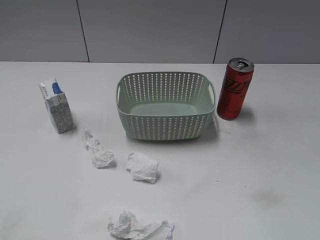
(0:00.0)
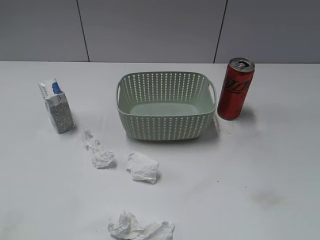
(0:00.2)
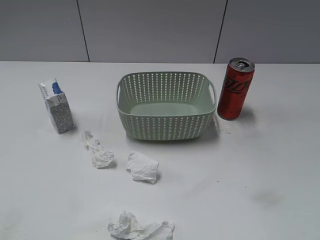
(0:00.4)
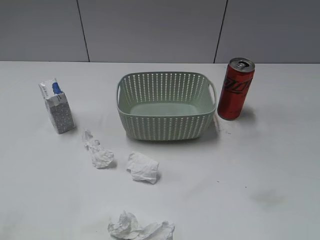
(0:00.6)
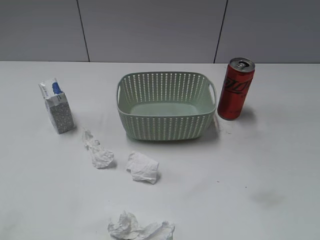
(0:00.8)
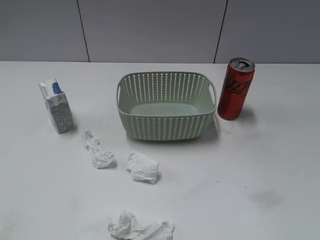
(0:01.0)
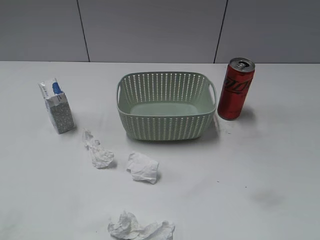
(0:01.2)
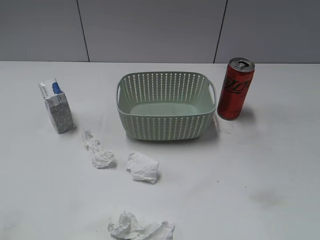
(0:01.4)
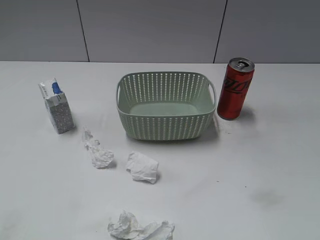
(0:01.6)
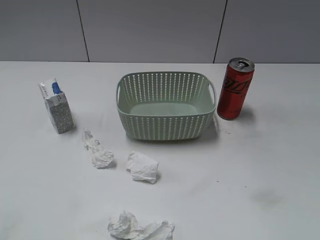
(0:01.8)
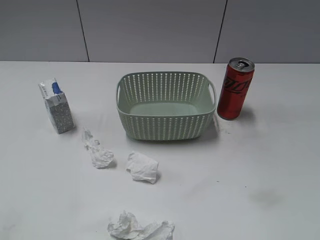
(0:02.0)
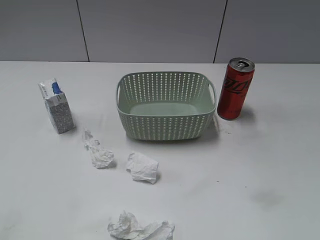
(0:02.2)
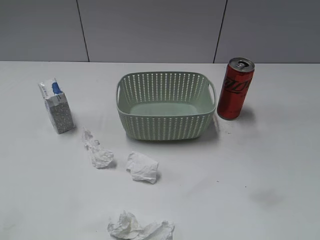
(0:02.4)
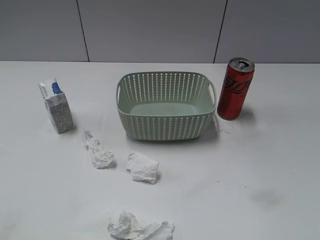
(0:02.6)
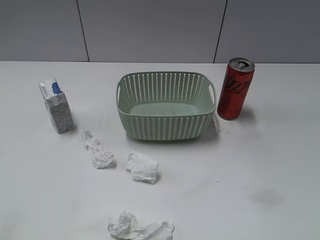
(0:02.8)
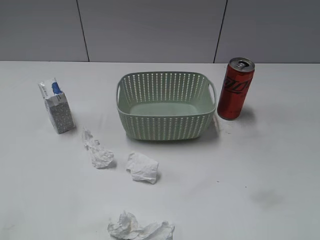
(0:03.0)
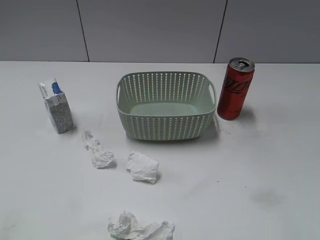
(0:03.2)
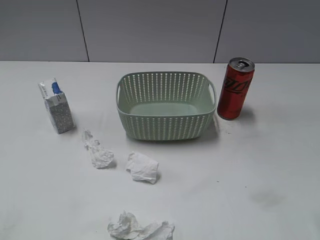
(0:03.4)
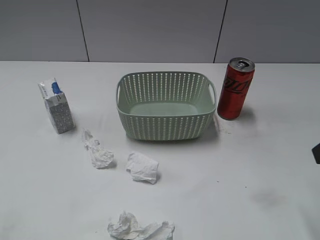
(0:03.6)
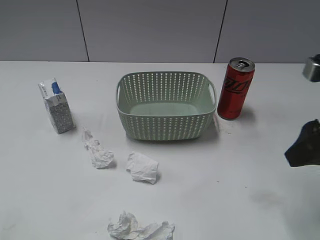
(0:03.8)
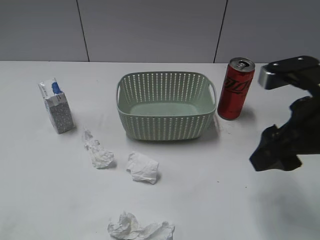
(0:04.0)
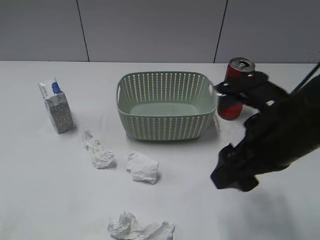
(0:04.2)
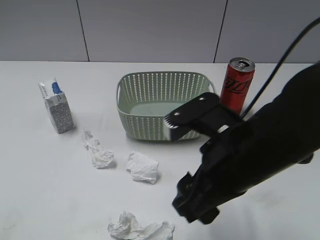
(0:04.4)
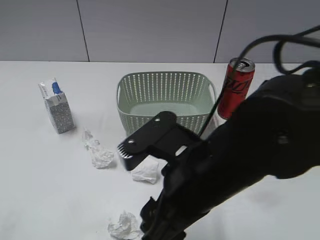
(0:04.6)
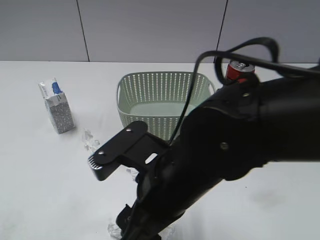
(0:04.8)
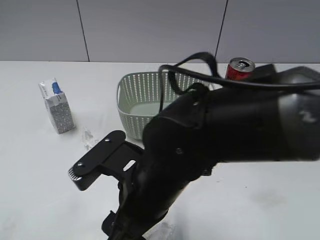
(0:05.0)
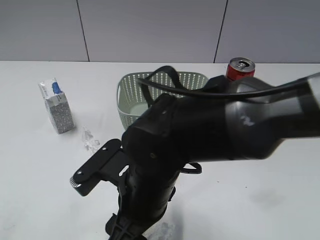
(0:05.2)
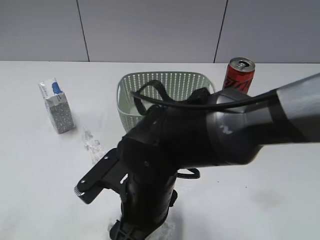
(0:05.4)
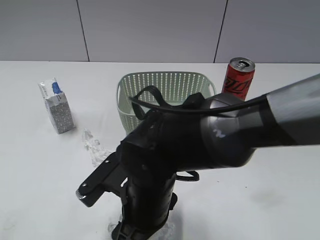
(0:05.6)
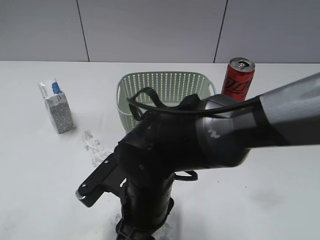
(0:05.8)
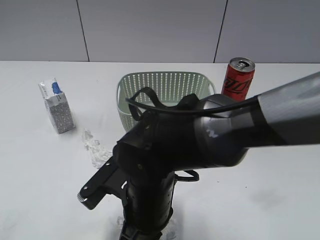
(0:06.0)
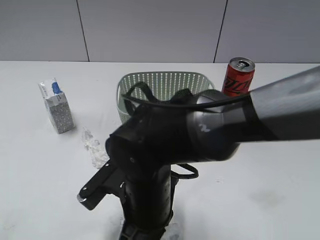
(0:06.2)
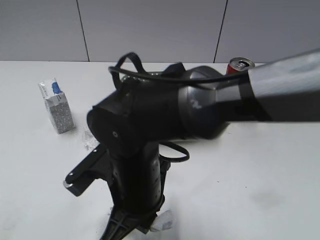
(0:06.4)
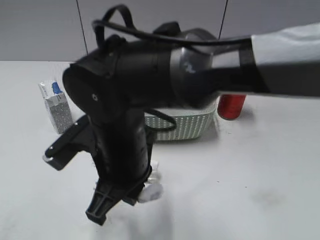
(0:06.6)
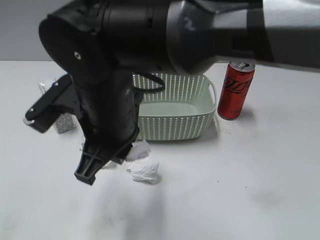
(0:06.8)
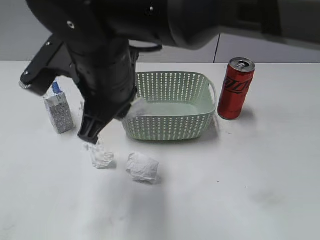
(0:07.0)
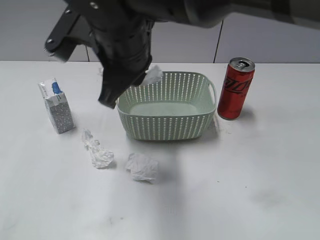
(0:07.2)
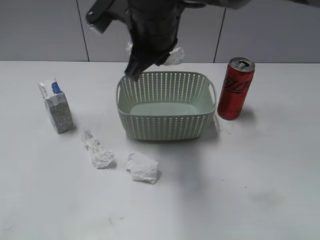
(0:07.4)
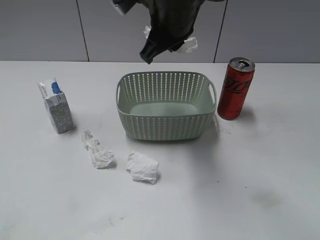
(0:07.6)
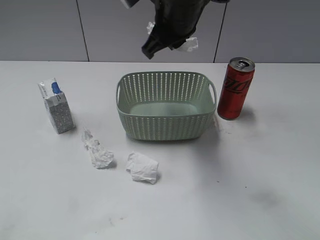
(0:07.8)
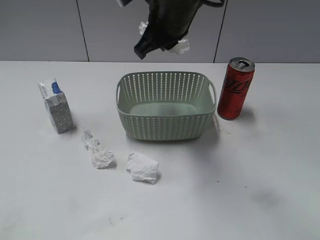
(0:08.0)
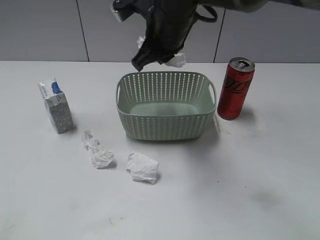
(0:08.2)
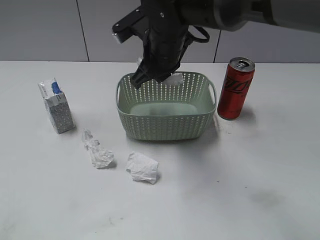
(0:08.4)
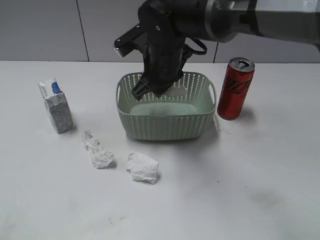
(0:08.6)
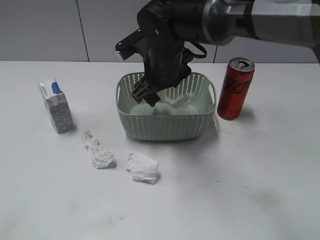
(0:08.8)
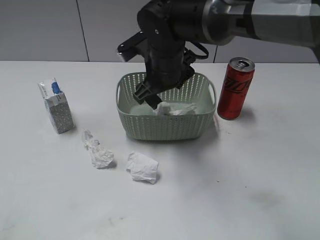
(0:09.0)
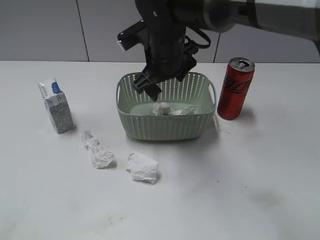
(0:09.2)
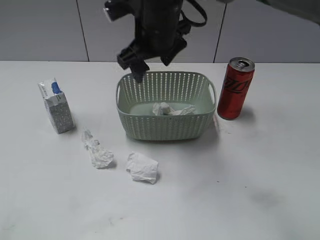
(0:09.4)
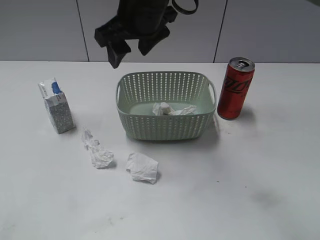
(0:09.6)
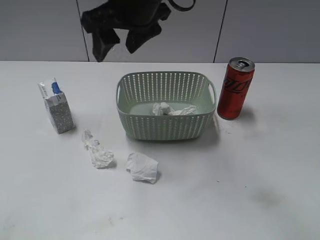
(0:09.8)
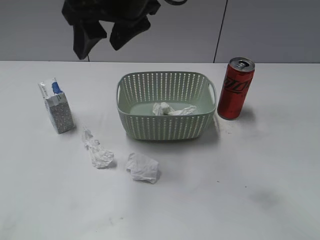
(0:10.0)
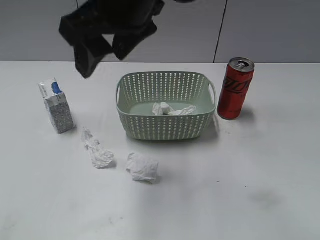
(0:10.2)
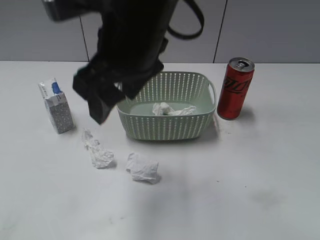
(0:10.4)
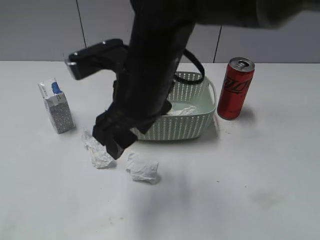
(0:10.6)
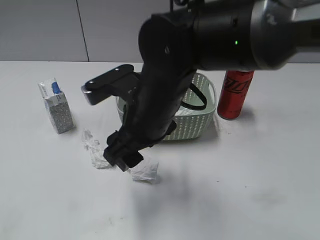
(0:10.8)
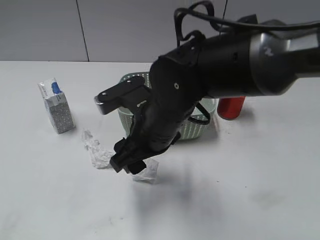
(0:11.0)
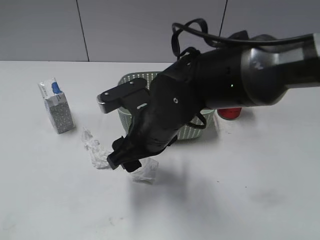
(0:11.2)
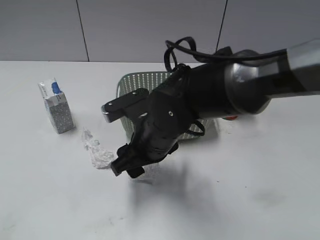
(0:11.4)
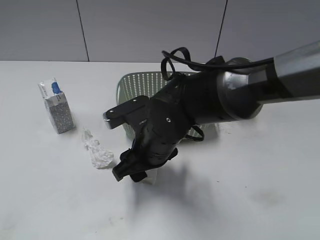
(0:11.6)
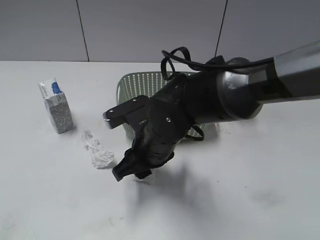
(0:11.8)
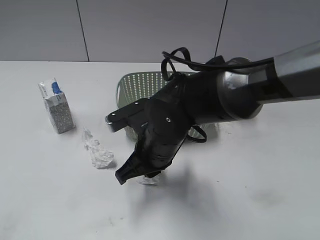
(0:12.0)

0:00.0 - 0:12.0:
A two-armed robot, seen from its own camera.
Step, 0:03.6 - 0:06.2: Grasp the waste paper with right gripper.
Step, 0:06.4 - 0:08.8: Place the waste paper in the basket with right gripper.
0:03.0 - 0:04.4: The right gripper moves to the left and forward, approximately 20 cm.
0:04.4 - 0:06.0: The right gripper is displaced to the left and downward by some 15 cm, and closes.
0:06.0 - 0:07.6: The right gripper is displaced forward and upward by some 25 cm, and closes its fingers.
0:07.6 - 0:09.0: The right gripper is displaced downward by approximately 10 cm, and opens up.
0:09.0 - 0:10.4: The right gripper heads upward and backward, covering approximately 15 cm.
0:10.4 - 0:12.0: The right gripper heads downward, covering roughly 20 cm, and closes up.

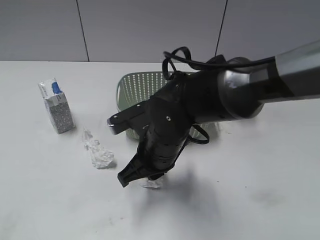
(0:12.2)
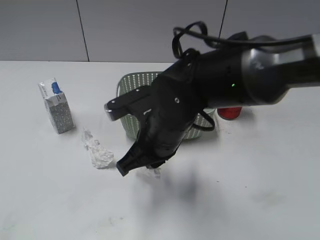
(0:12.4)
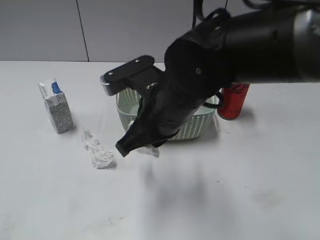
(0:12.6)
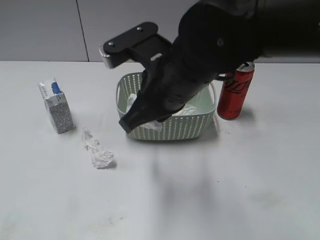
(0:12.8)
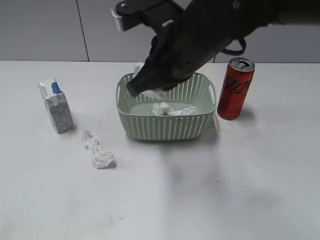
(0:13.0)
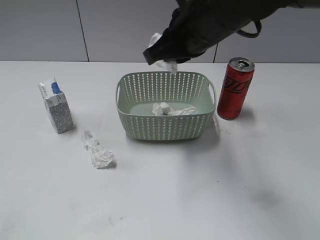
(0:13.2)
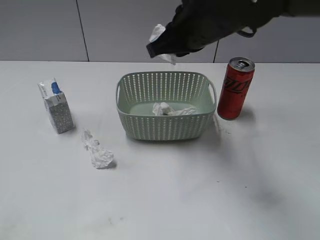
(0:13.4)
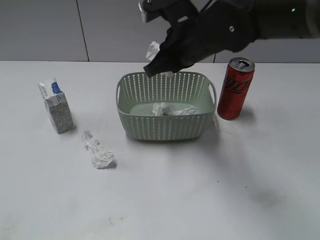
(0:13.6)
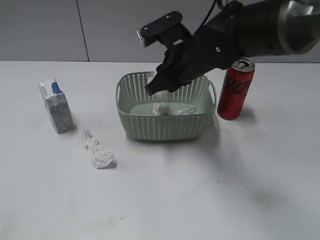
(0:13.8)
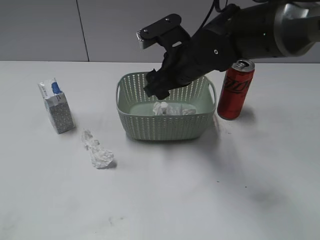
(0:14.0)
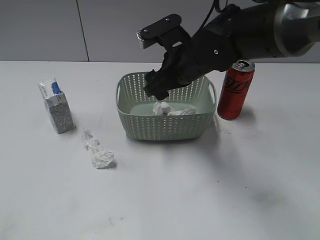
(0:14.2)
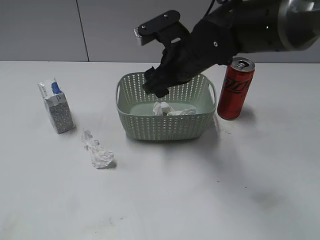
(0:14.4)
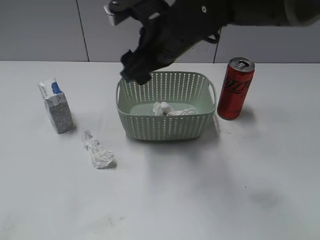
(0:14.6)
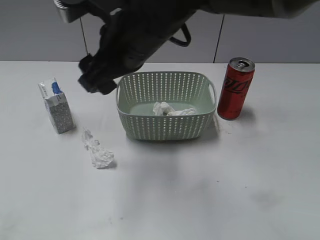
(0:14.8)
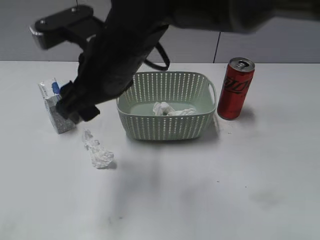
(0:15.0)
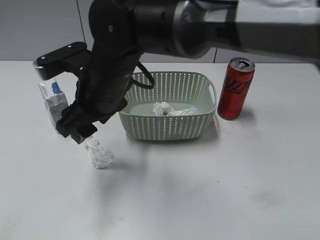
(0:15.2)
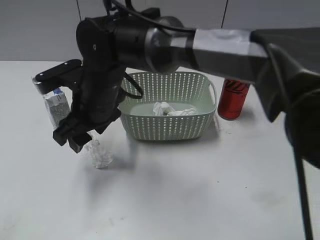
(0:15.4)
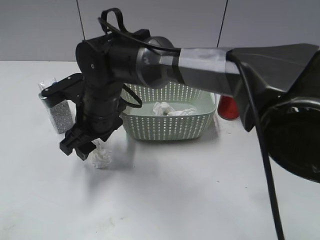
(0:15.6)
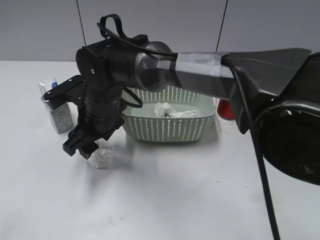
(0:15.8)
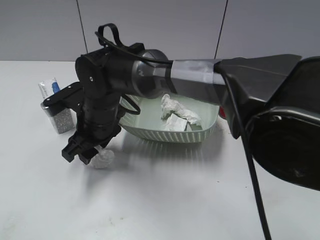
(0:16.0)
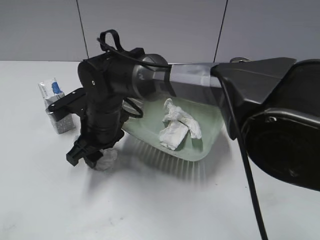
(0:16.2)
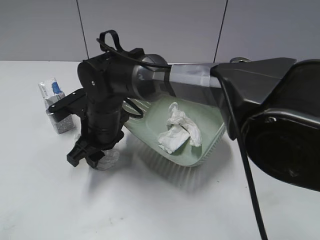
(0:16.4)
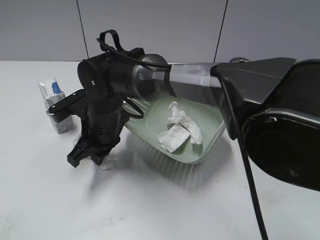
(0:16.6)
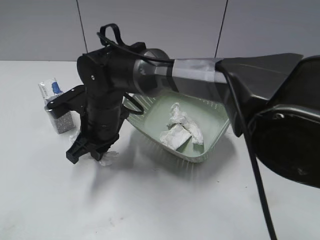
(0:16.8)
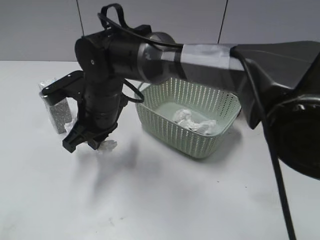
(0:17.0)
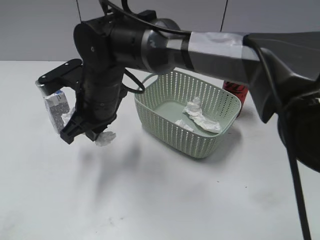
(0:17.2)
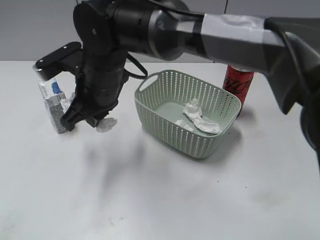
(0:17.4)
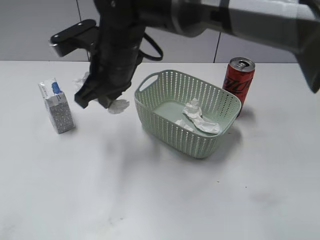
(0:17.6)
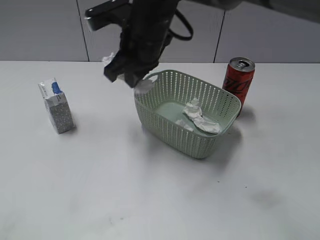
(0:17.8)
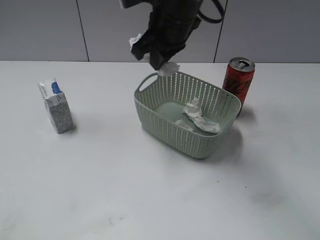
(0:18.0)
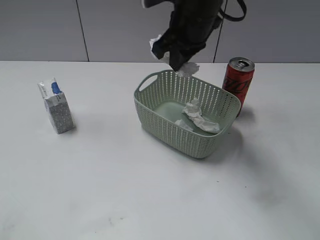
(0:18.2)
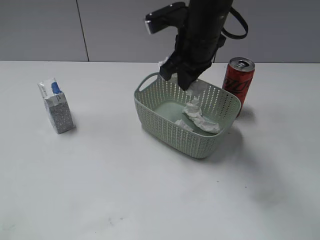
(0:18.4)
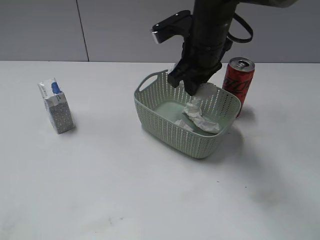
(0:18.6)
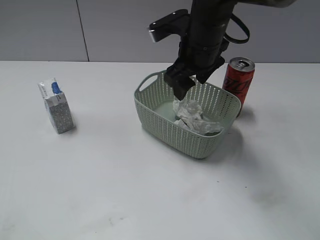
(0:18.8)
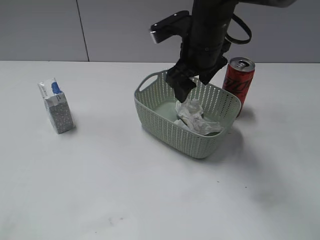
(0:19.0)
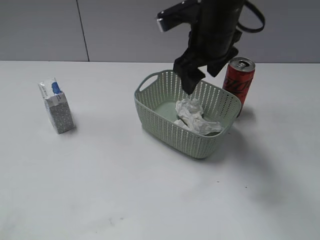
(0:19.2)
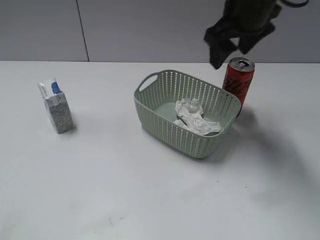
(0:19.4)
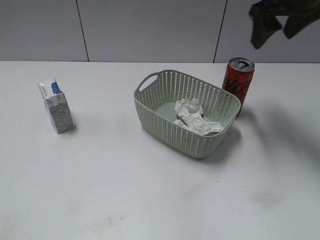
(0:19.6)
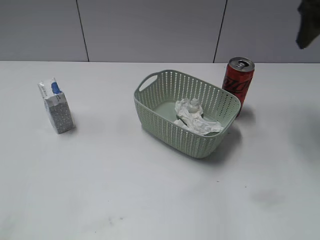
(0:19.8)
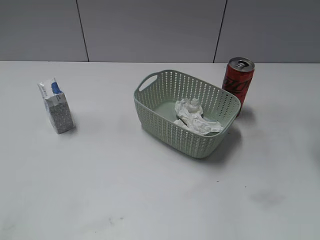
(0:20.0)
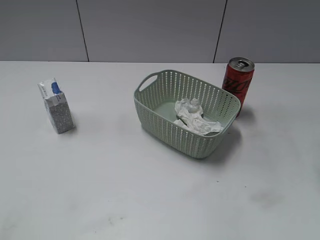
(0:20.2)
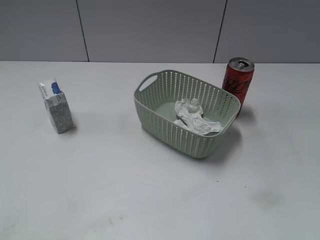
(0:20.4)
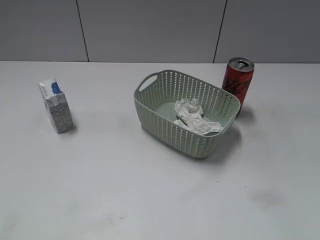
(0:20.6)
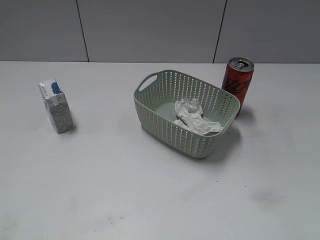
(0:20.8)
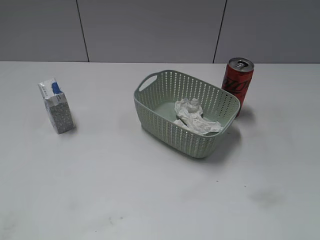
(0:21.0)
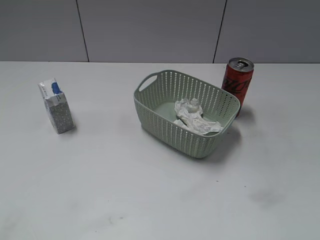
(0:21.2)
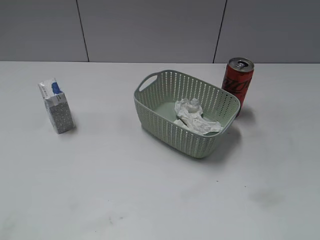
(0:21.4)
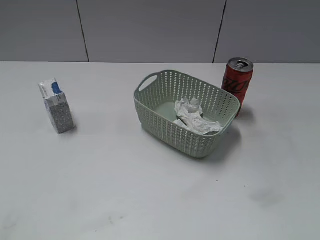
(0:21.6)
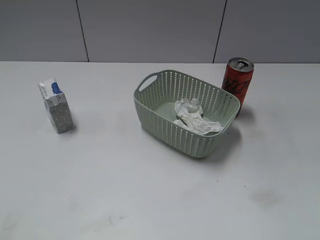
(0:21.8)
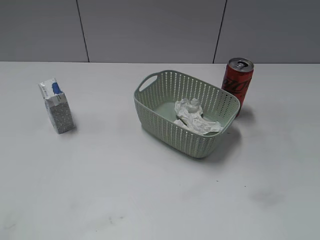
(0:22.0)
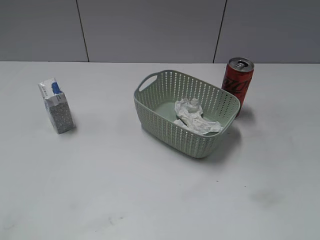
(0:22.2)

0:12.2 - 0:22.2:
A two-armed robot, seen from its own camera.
Step, 0:12.2 - 0:14.2: Place the waste paper in the basket with right gripper.
Step, 0:14.4 - 0:16.6: Grasp the waste paper with right gripper.
Step, 0:16.8 - 0:18.8: Place the waste paper in the basket with right gripper.
0:12.2 - 0:13.6: The right gripper travels upward and forward by some 15 cm.
0:13.6 - 0:15.0: The right gripper heads to the left and backward, covering some 15 cm, and opens.
0:15.0 - 0:16.4: The right gripper goes approximately 15 cm downward.
0:16.4 - 0:18.0: The right gripper is displaced upward, to the right and forward by about 20 cm, and closes up.
0:18.0 - 0:19.4: The right gripper moves to the right, some 10 cm, and opens its fingers.
0:19.4 - 0:20.8: The right gripper shifts some 30 cm backward and to the right.
